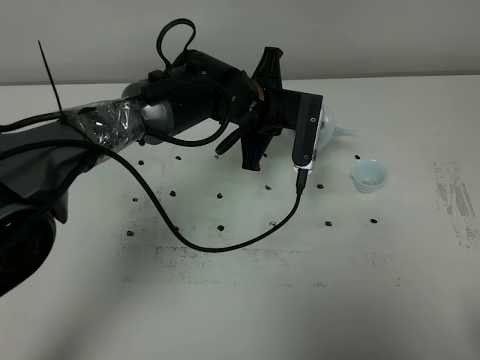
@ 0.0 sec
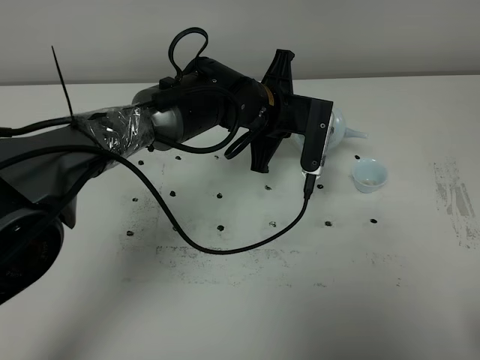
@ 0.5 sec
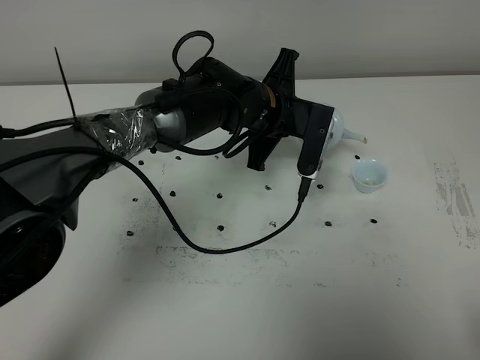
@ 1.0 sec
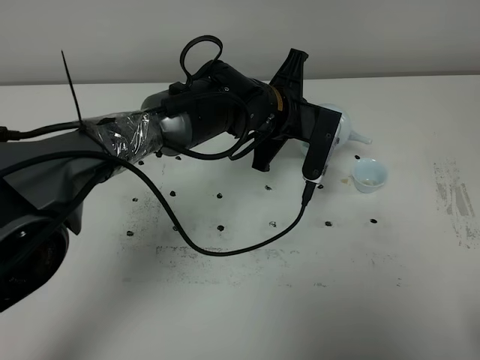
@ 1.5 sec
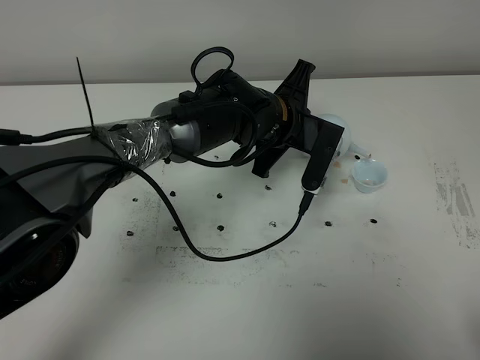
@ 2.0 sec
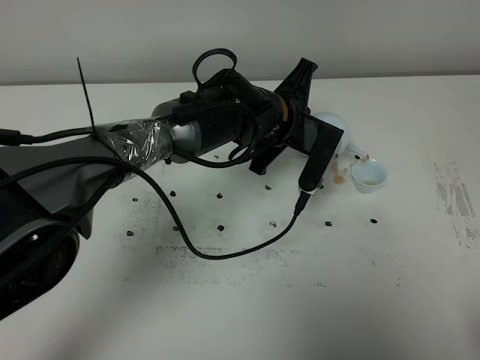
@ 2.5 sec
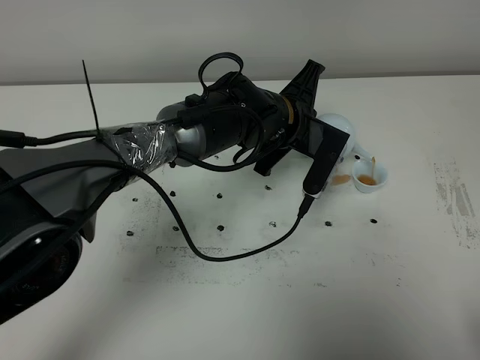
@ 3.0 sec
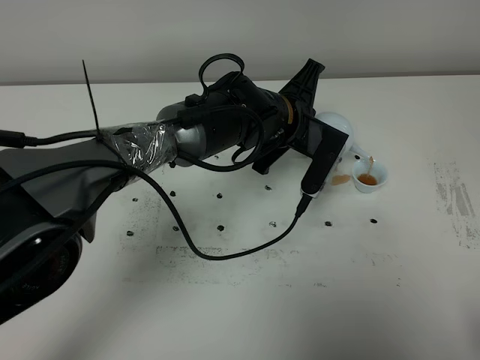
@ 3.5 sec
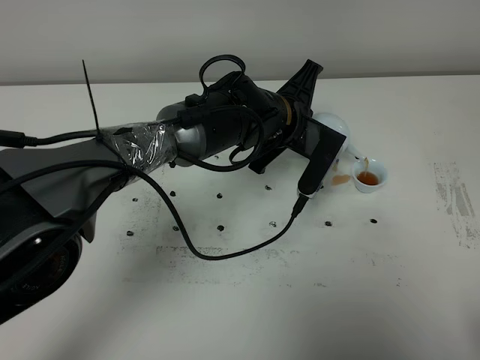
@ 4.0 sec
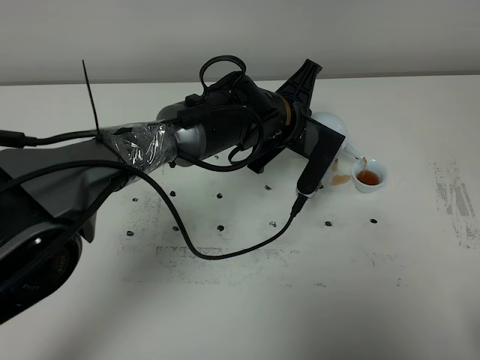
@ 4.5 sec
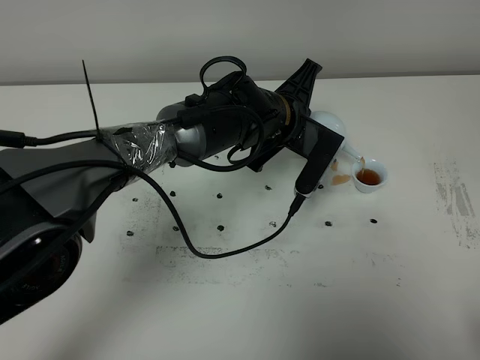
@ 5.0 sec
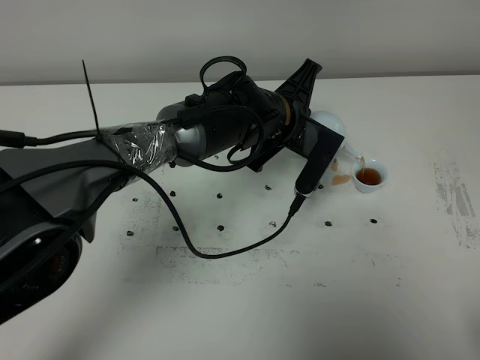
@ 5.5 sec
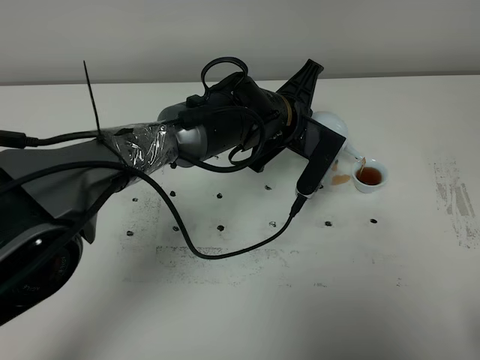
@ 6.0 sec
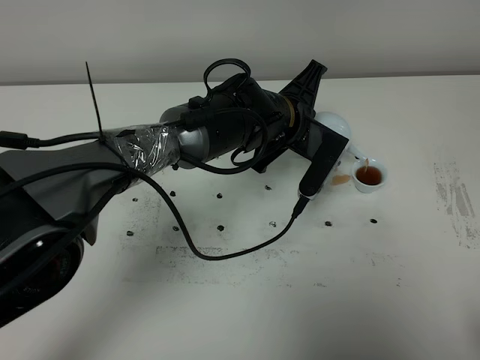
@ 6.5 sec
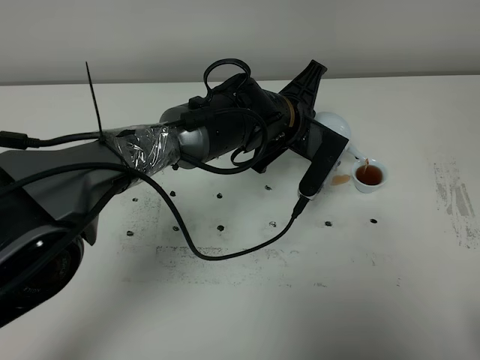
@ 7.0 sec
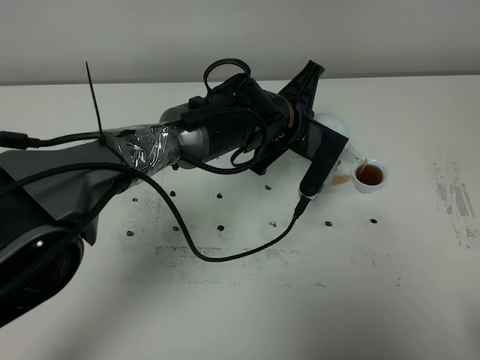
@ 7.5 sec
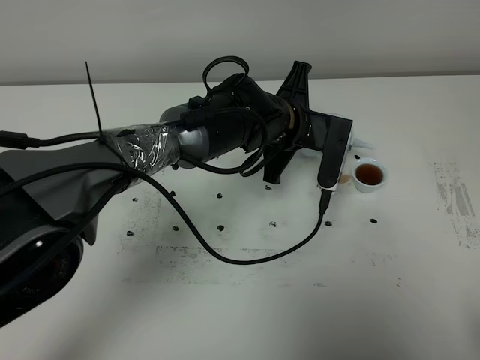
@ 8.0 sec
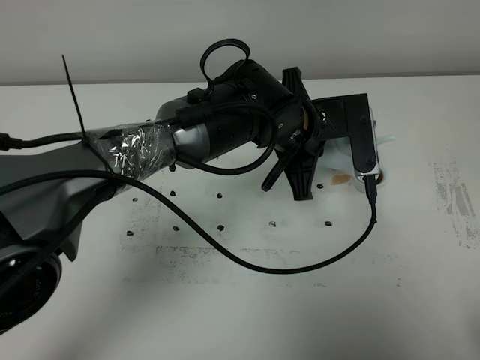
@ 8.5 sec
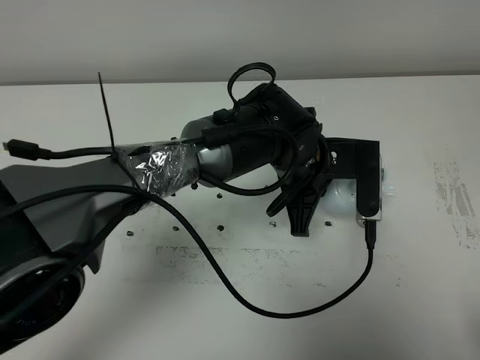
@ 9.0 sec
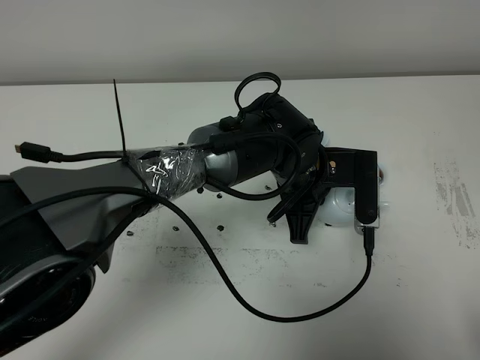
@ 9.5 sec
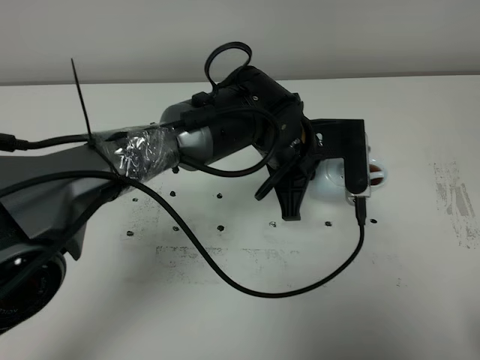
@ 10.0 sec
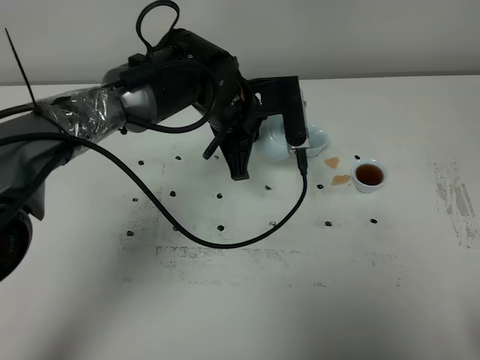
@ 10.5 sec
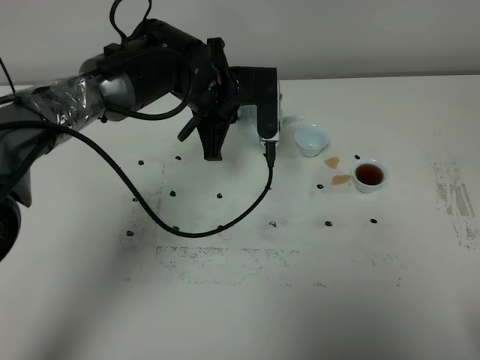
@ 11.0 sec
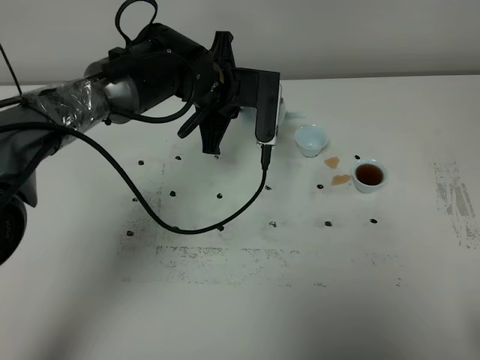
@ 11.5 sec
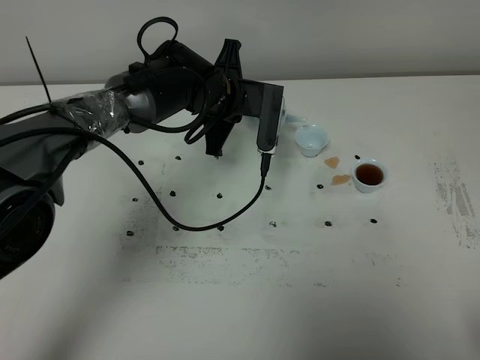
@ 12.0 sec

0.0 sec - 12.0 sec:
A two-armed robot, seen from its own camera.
Task of the whole recording: grasp the blue porcelain teapot and pour the tea into the two blue porcelain teacups one by one, put the blue porcelain teapot back in its original place.
Step, 0.0 sec - 8.0 sec: Pour tea into the teacup with the left gripper.
0.0 sec - 2.0 sec: The grippers move only a little.
2.0 sec - 4.0 sec: The grippers stay close to where they were, moving slightly.
4.0 sec - 6.0 sec: Neither gripper changes place.
6.0 sec - 8.0 sec: The grippers move only a little.
10.0 sec - 12.0 sec: The left gripper travels forward and to the left by approximately 15 cm.

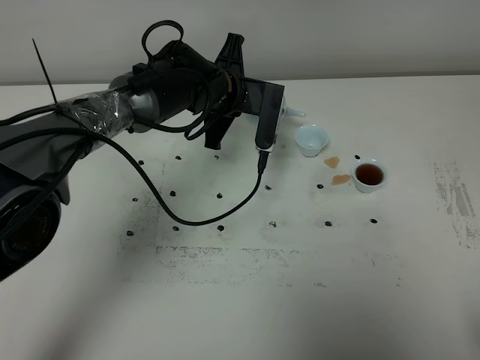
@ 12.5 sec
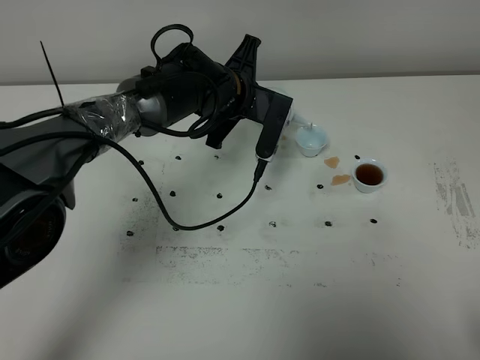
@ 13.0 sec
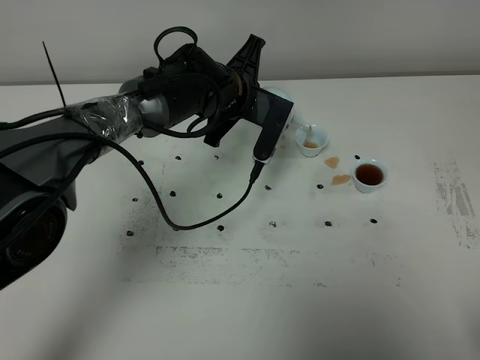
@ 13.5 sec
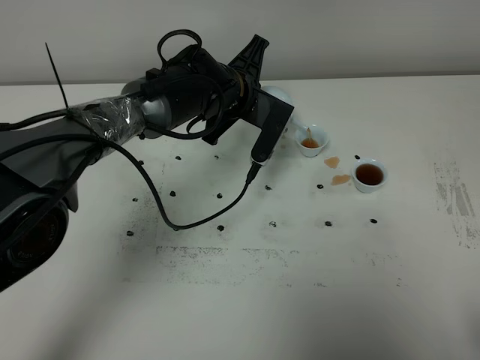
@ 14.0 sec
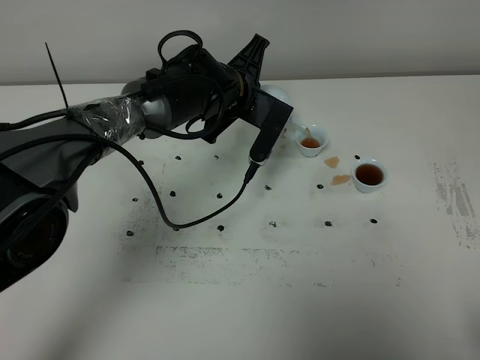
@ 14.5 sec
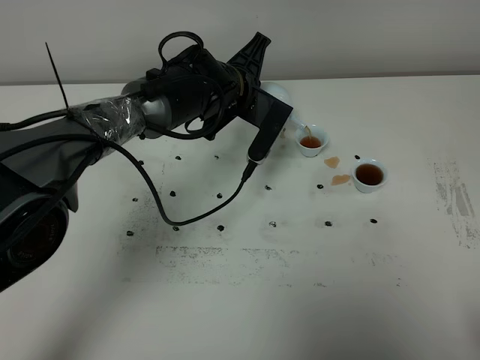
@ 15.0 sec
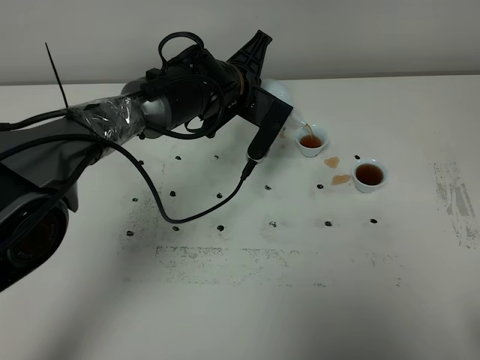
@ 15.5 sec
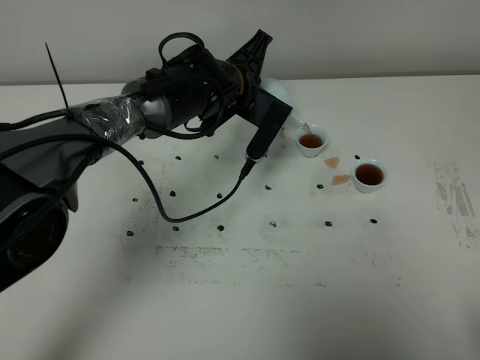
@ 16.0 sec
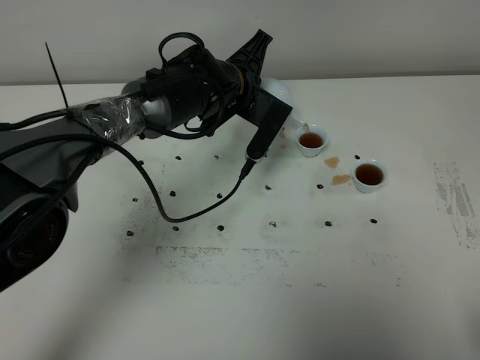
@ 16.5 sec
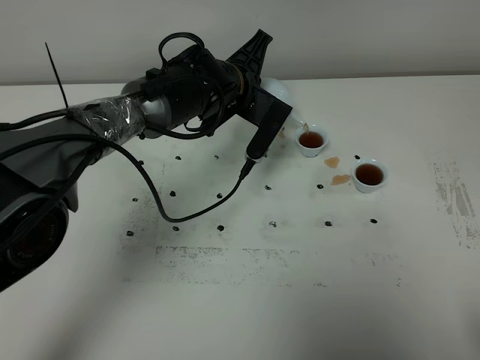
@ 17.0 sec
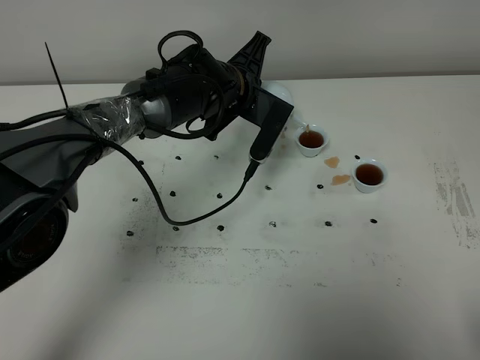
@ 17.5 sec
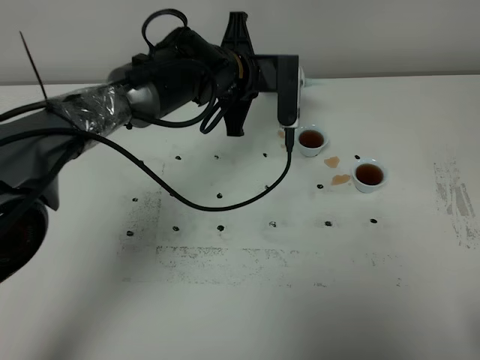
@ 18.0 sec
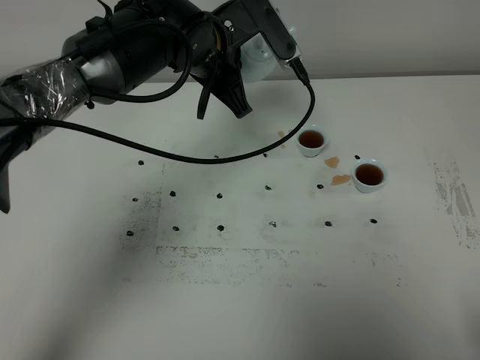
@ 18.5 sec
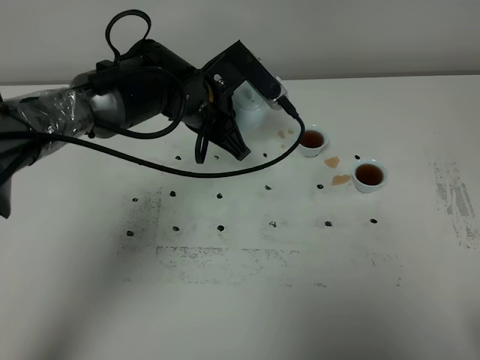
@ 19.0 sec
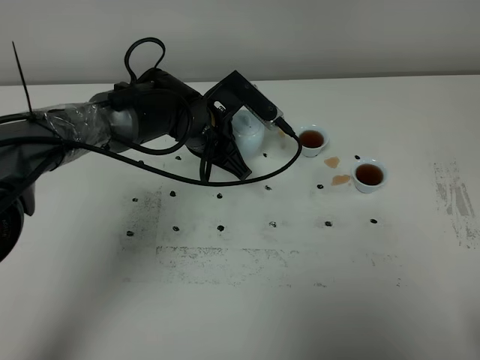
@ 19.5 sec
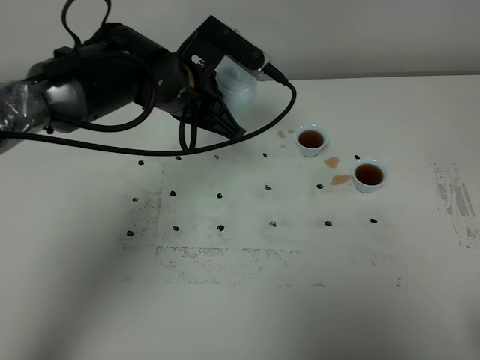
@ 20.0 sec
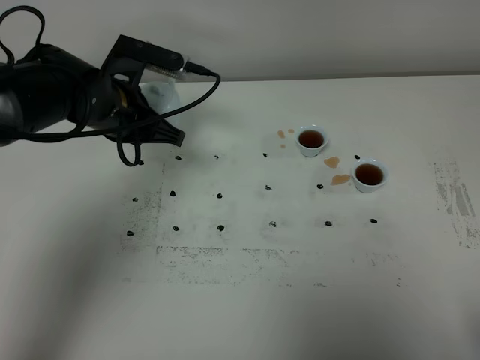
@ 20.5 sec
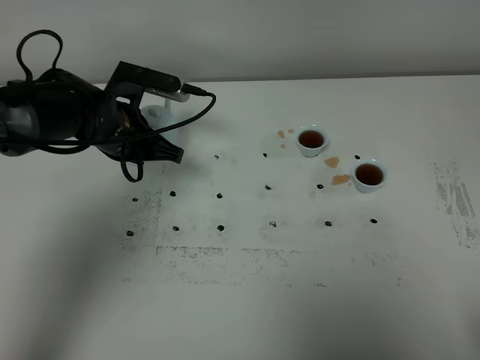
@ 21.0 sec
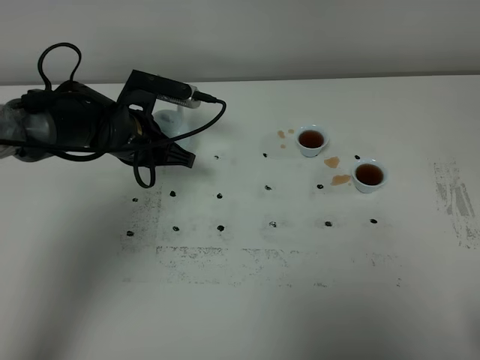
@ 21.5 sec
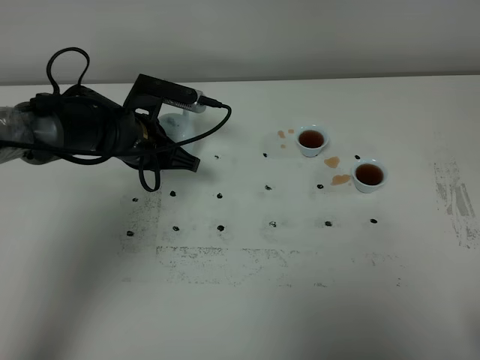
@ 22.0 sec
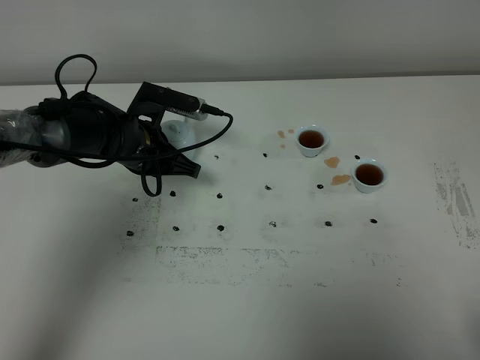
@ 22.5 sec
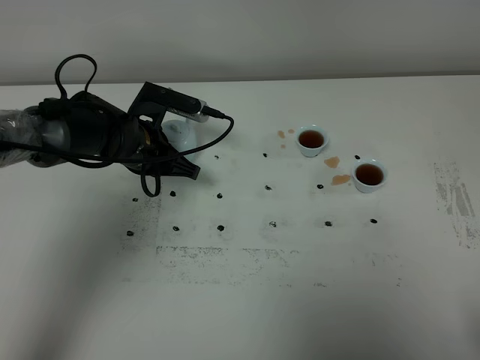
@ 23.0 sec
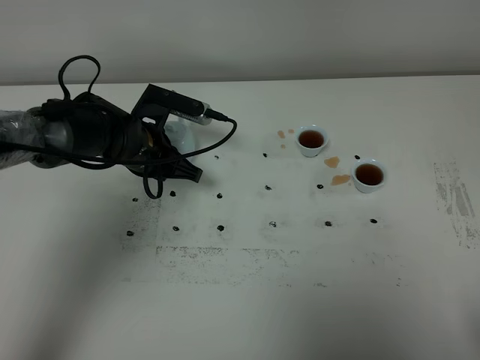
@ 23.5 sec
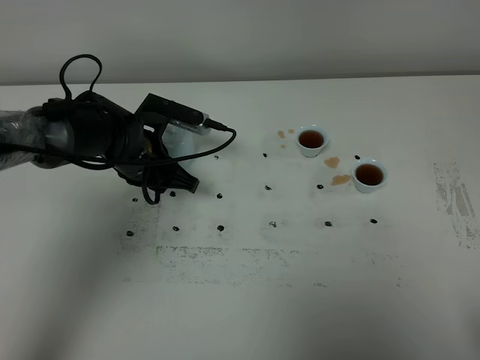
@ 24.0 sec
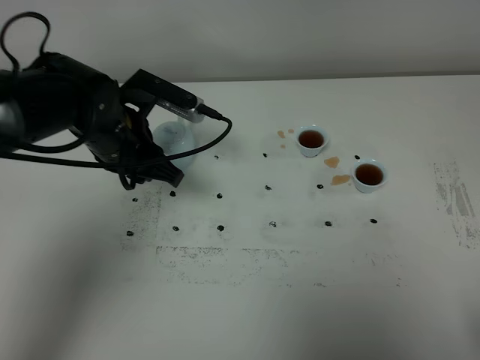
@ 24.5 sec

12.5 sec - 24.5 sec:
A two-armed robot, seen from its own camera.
Task of the whole recording: grasp the blue porcelain teapot and pour the tea into the two blue porcelain teacups one by one, put the blue porcelain teapot back in its original place.
Step, 12.5 sec - 17.5 sec: Pour tea into the teacup with the left gripper.
12.5 sec - 14.5 sec: The grippers move only a little.
14.5 sec - 16.5 sec: Neither gripper changes place.
16.5 sec - 18.5 sec: The left gripper travels upward by some 10 cm.
18.5 sec - 20.5 sec: The left gripper is displaced to the left and downward by approximately 15 cm.
20.5 sec - 22.5 sec: The left gripper travels downward by some 5 cm.
22.5 sec - 24.5 sec: The left gripper shifts some 10 cm upward, and opens.

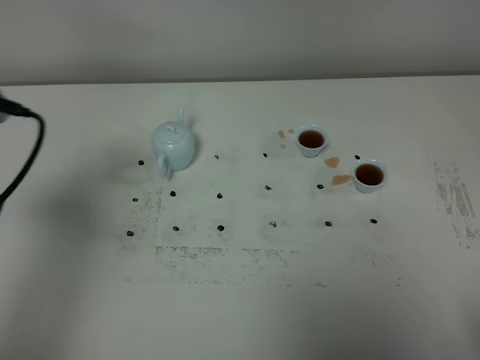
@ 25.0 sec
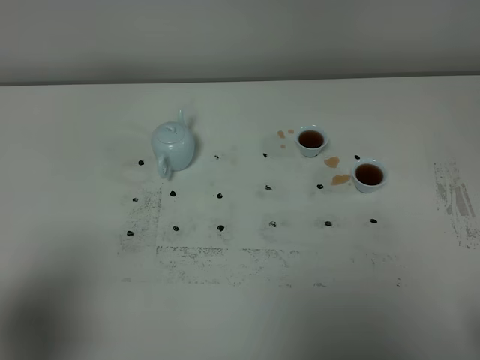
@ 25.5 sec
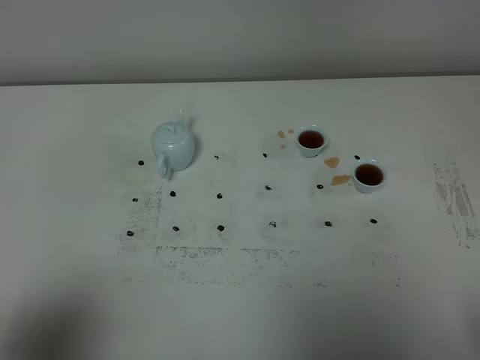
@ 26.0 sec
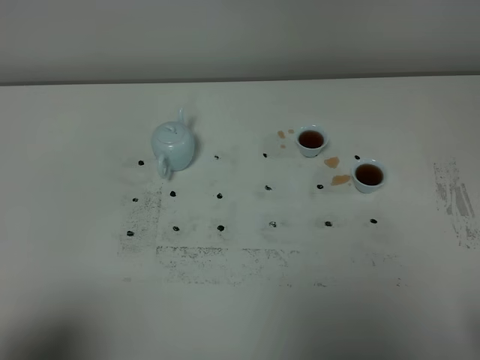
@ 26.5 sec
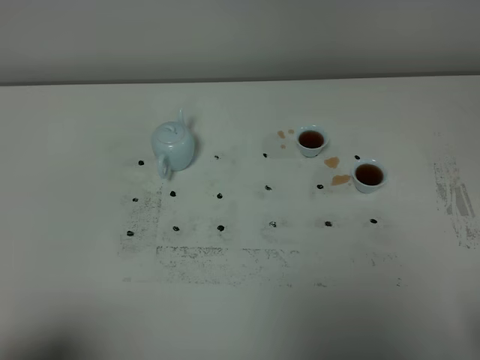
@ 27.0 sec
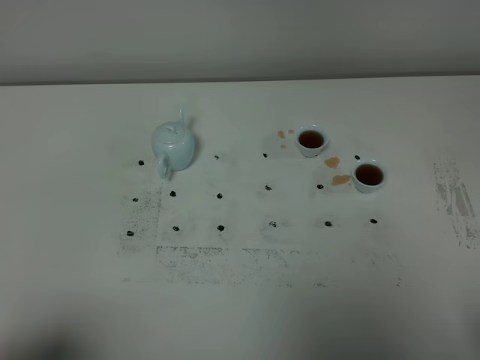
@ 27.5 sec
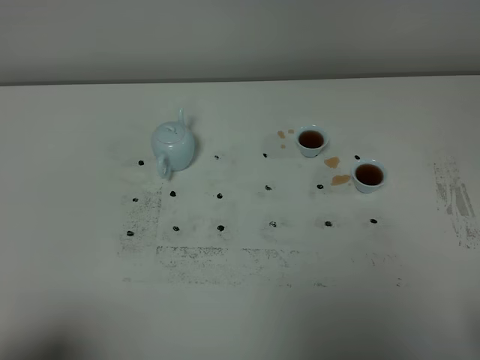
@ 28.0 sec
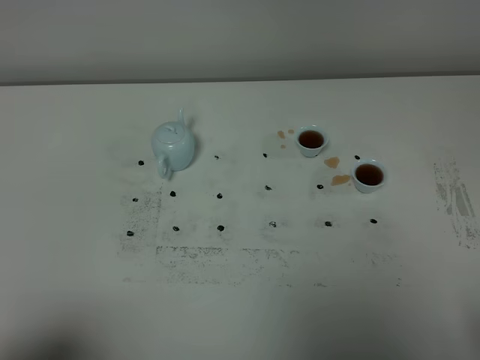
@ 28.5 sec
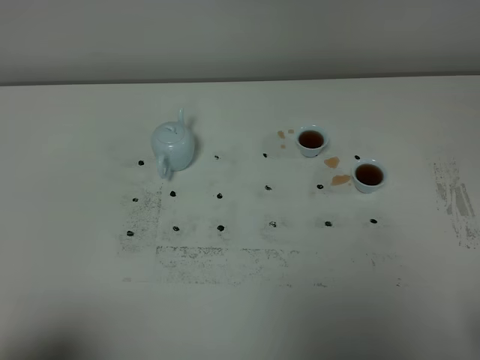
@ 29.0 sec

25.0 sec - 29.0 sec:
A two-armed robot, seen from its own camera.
Task of the whole recording: grasp the blue porcelain teapot and pour the tea into the two blue porcelain teacups one by one, put the blue porcelain teapot back in its original place.
25.0 sec - 27.0 sec: The left gripper travels backward by roughly 20 cm.
27.0 sec - 29.0 sec: Neither gripper changes place.
